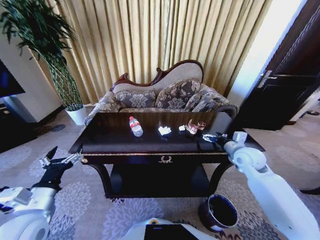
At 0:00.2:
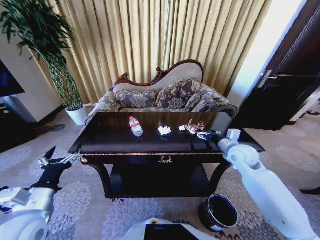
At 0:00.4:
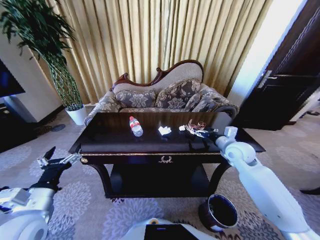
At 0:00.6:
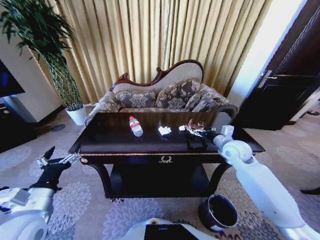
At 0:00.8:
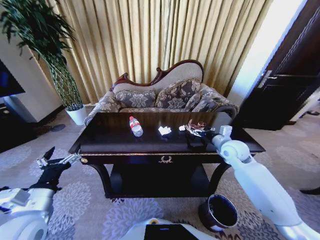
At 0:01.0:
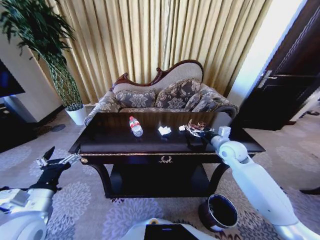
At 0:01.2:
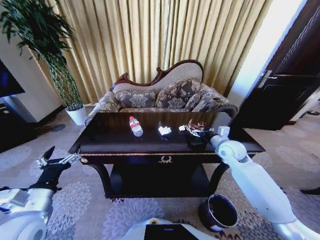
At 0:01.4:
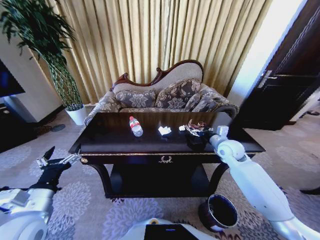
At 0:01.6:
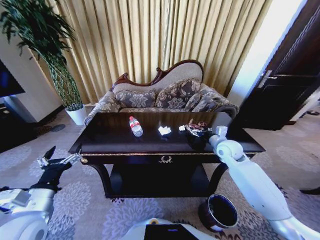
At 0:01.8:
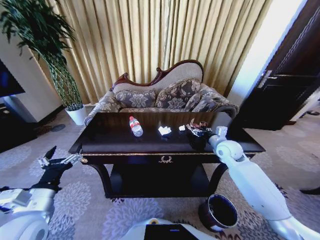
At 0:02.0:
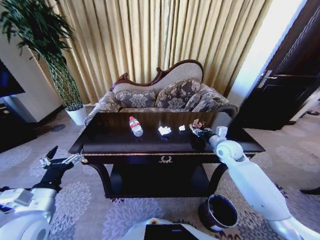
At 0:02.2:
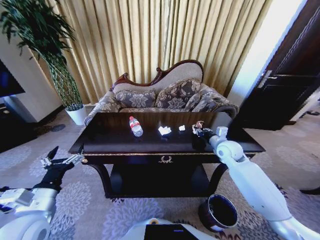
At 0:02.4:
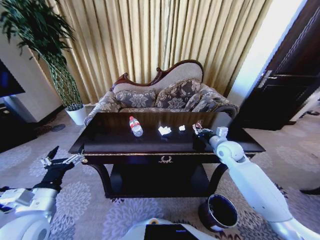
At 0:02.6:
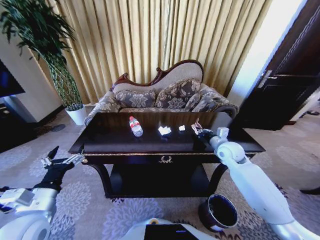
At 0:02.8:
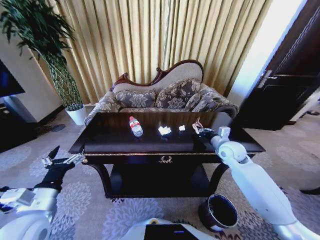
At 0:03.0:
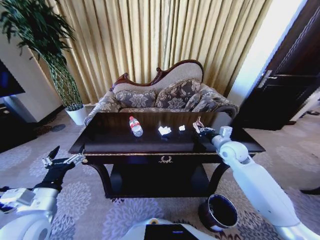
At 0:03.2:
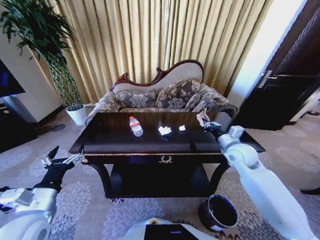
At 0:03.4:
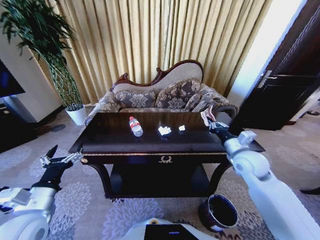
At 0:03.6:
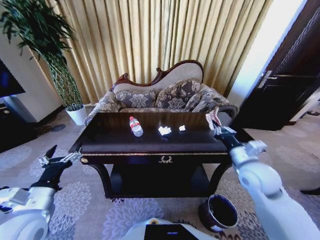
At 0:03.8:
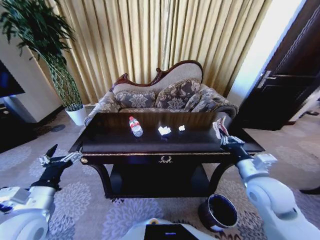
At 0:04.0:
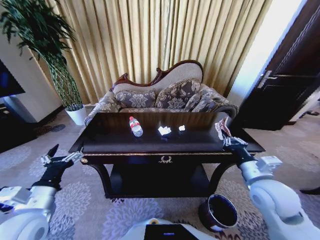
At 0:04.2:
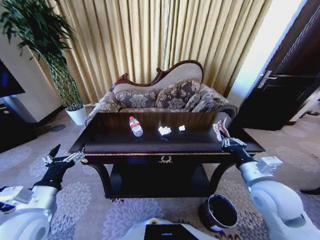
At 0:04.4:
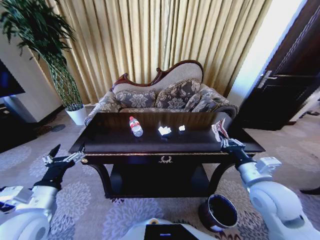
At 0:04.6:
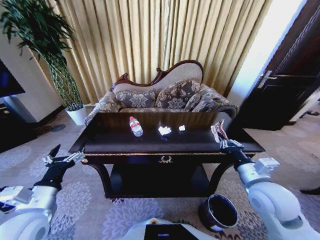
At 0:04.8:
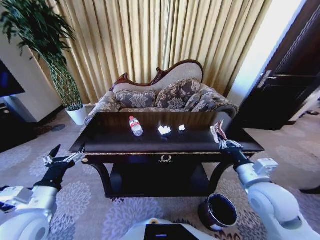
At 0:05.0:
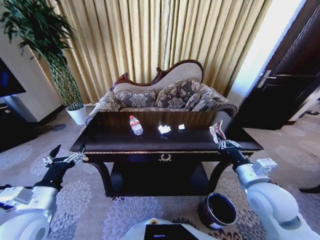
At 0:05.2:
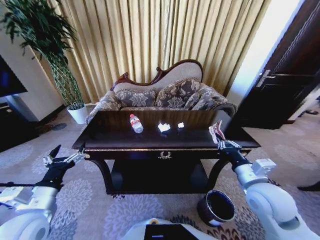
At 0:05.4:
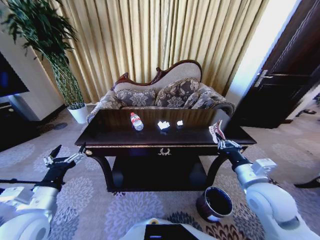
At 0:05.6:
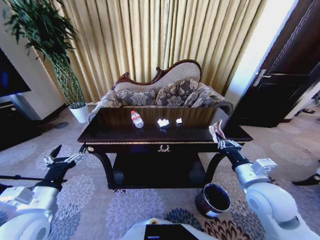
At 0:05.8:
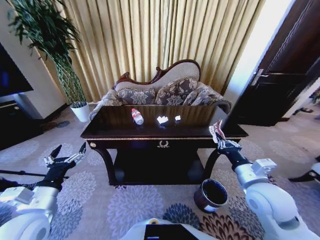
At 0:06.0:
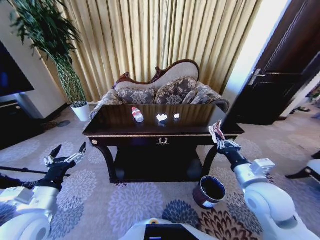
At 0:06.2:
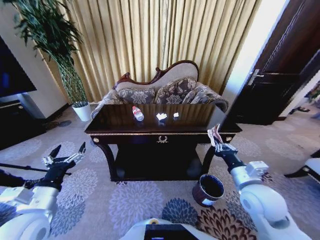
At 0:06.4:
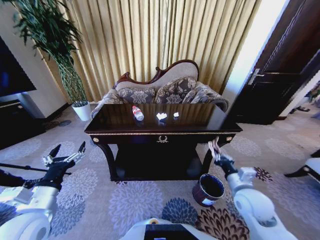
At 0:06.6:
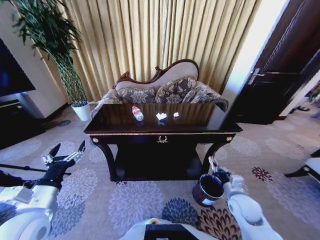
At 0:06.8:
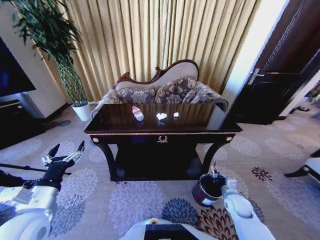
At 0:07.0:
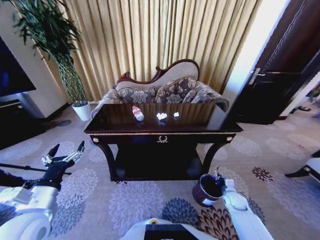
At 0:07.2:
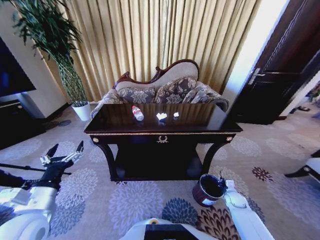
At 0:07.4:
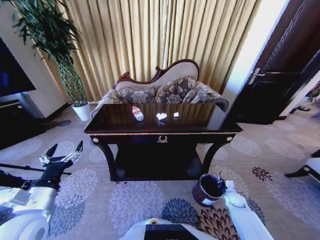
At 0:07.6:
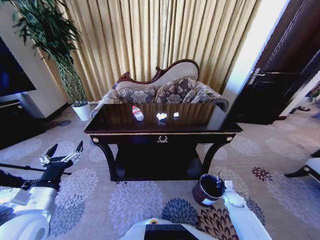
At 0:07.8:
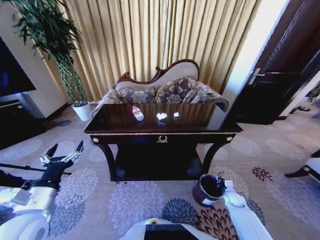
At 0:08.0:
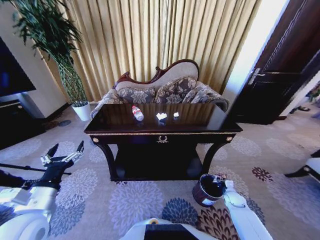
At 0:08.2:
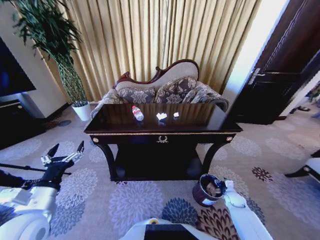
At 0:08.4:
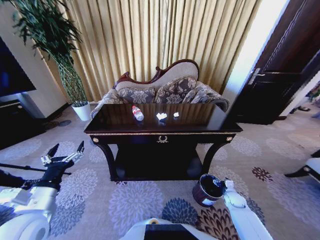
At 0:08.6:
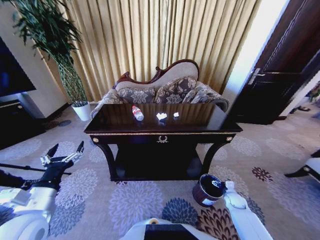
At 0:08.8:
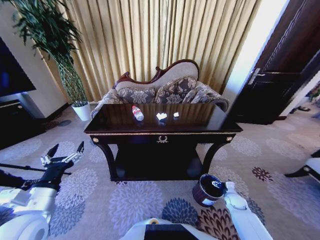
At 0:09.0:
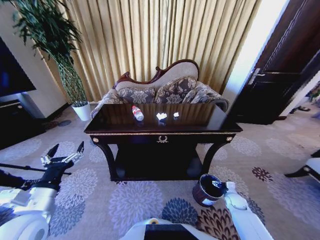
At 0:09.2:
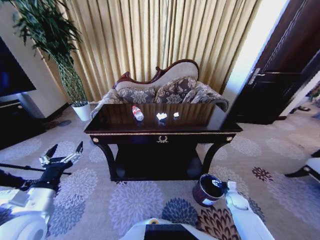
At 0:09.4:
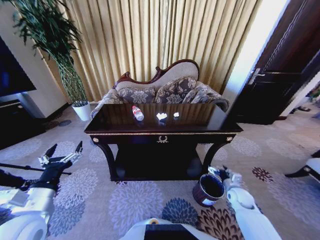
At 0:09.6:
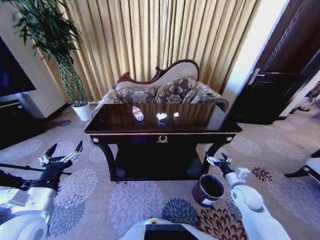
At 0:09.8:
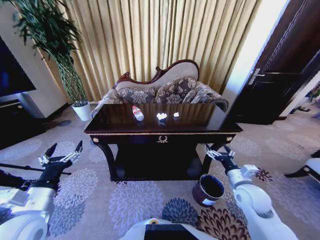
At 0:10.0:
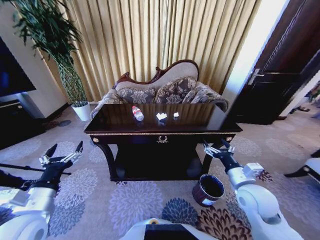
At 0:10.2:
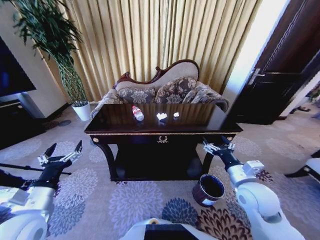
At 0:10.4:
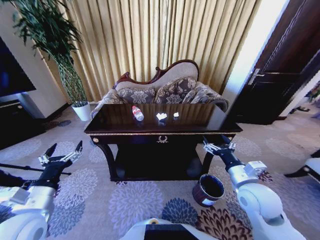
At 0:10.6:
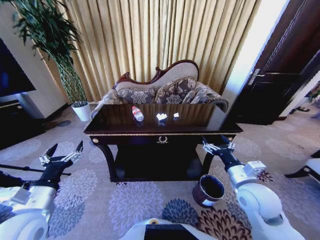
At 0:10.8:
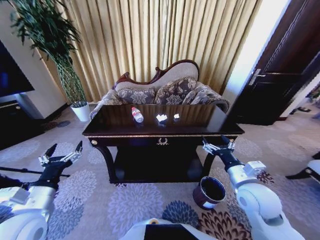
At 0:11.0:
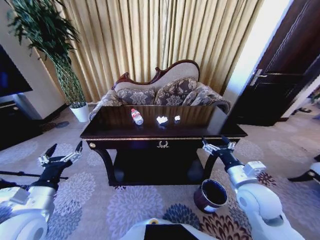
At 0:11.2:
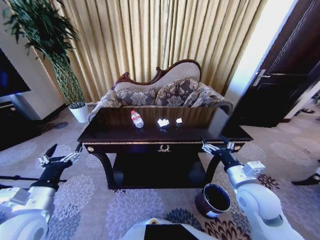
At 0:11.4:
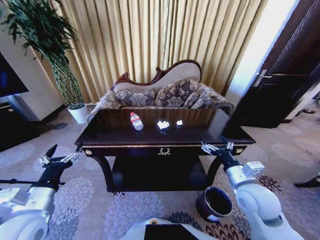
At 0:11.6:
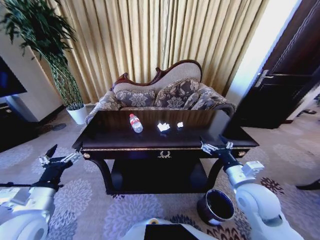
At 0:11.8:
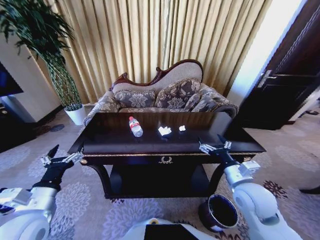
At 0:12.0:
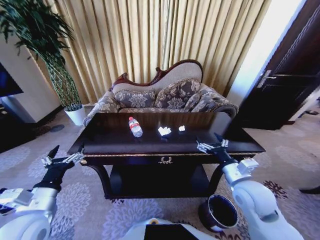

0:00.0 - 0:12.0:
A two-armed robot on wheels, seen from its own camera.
Task of the whole recording: Move to the front of the table and place the trash on the table into the trash bin.
0:00.0 - 0:01.6: The right gripper heads forward, covering approximately 5 cm.
0:01.6 - 0:03.0: The right gripper closes up.
0:03.0 - 0:04.4: The right gripper is displaced backward by some 20 cm.
0:06.0 - 0:07.6: The right gripper goes roughly 35 cm downward.
0:09.0 - 0:10.4: The right gripper goes some 35 cm upward and to the left.

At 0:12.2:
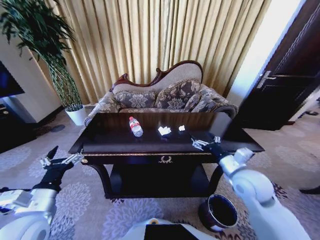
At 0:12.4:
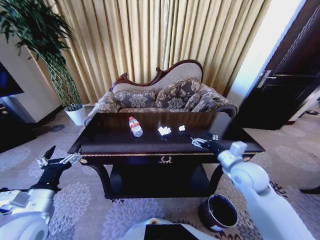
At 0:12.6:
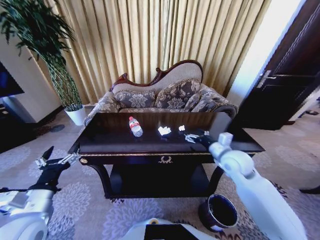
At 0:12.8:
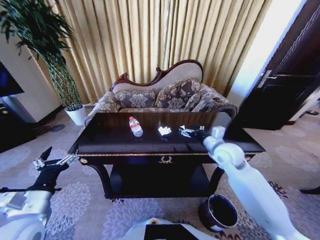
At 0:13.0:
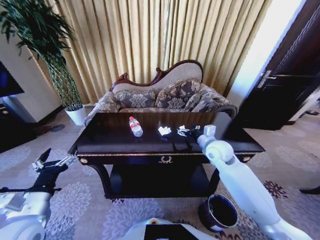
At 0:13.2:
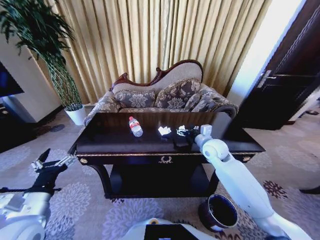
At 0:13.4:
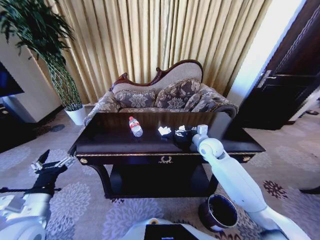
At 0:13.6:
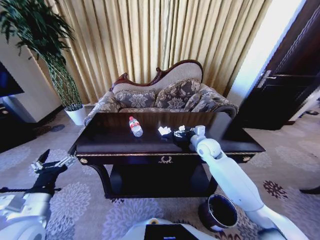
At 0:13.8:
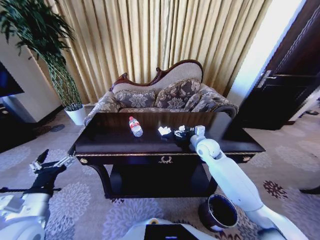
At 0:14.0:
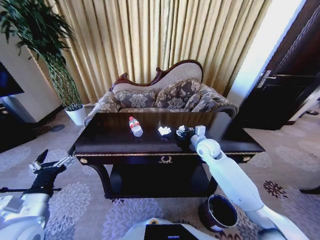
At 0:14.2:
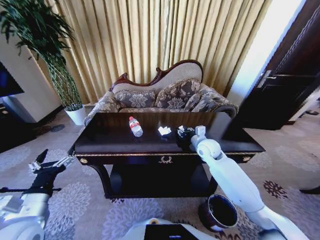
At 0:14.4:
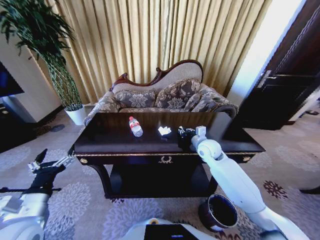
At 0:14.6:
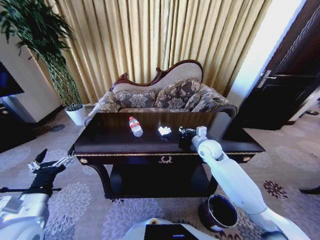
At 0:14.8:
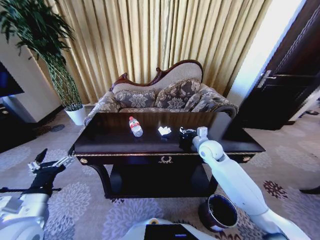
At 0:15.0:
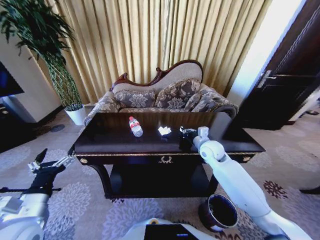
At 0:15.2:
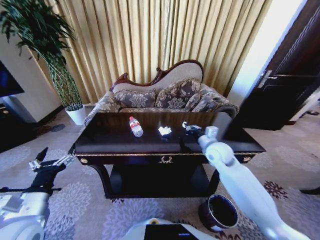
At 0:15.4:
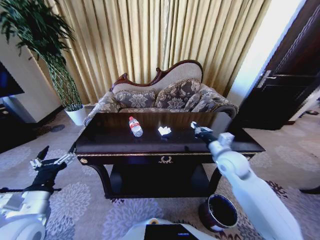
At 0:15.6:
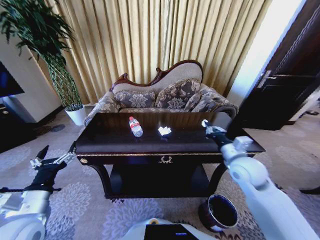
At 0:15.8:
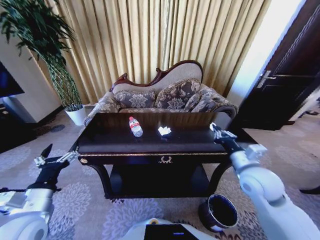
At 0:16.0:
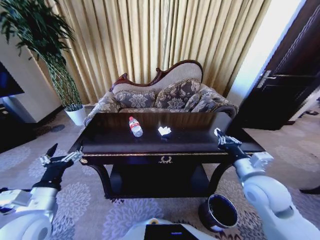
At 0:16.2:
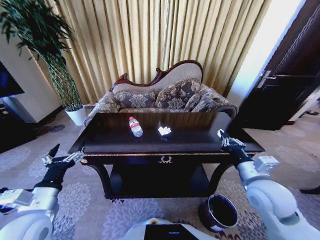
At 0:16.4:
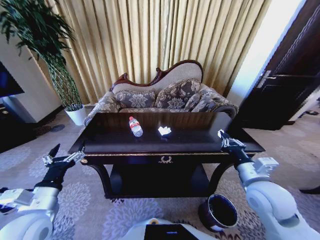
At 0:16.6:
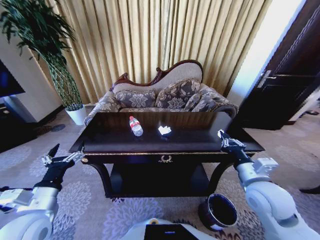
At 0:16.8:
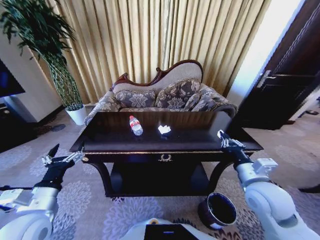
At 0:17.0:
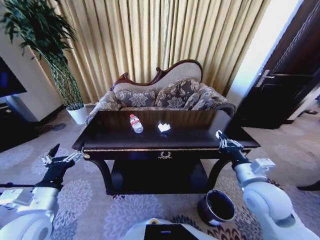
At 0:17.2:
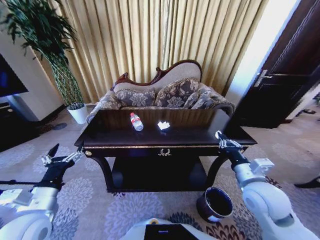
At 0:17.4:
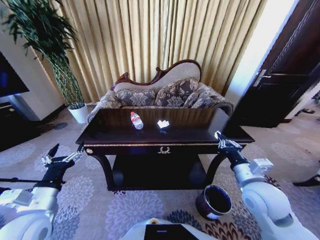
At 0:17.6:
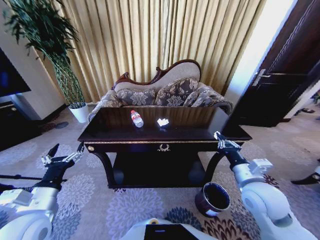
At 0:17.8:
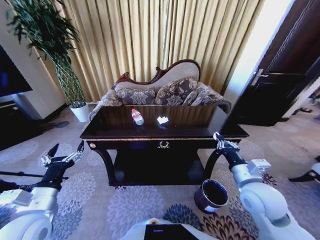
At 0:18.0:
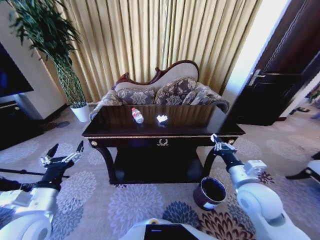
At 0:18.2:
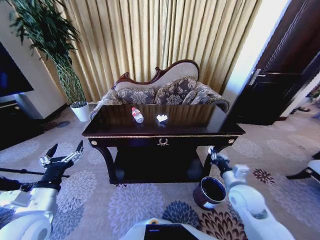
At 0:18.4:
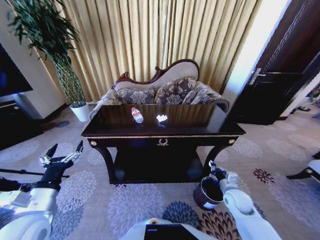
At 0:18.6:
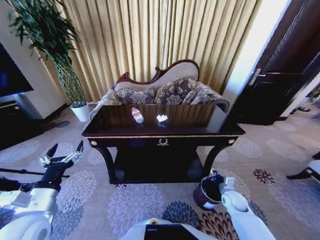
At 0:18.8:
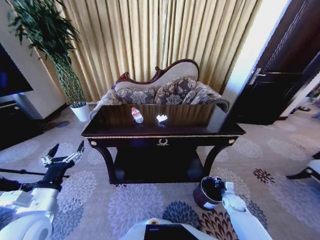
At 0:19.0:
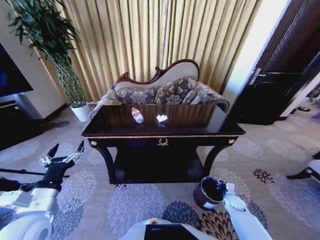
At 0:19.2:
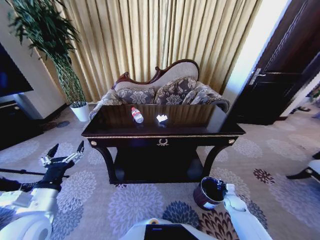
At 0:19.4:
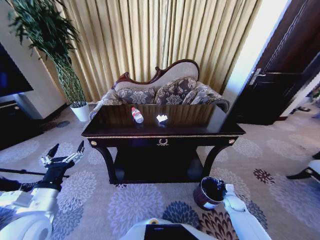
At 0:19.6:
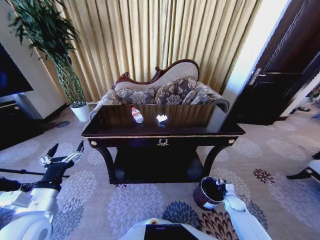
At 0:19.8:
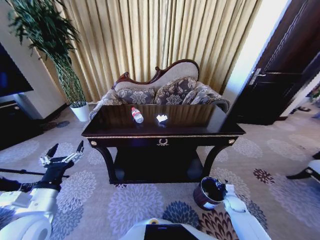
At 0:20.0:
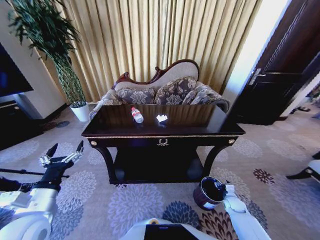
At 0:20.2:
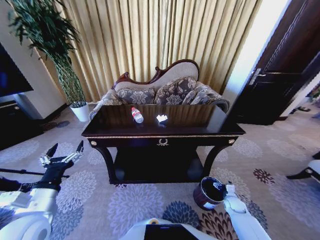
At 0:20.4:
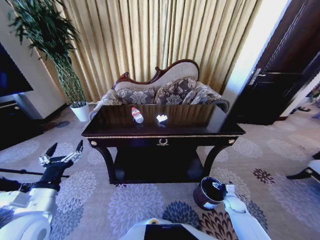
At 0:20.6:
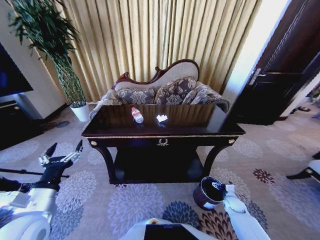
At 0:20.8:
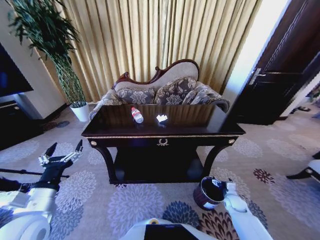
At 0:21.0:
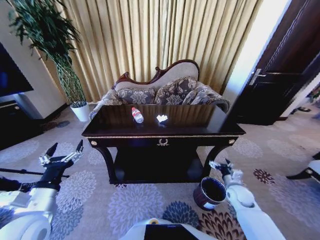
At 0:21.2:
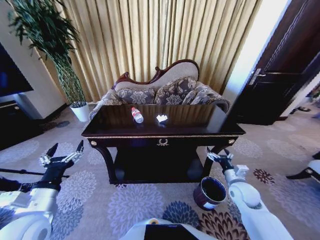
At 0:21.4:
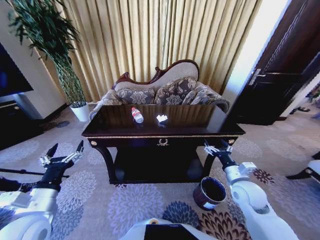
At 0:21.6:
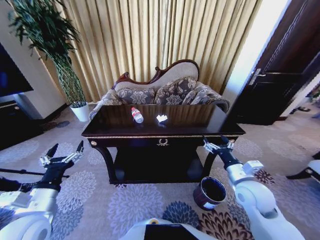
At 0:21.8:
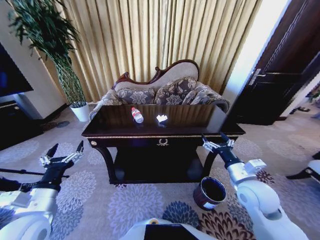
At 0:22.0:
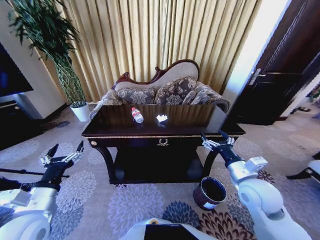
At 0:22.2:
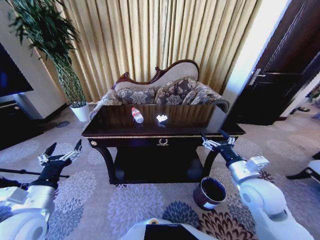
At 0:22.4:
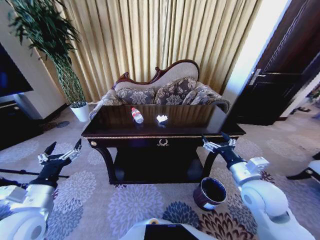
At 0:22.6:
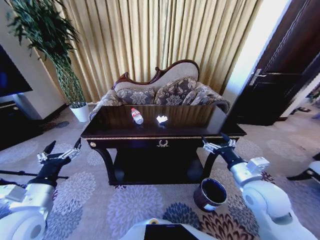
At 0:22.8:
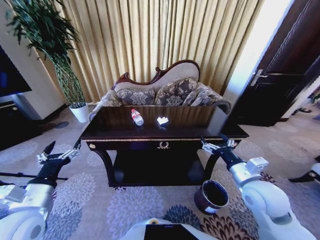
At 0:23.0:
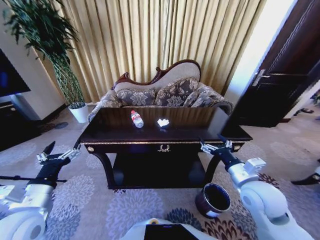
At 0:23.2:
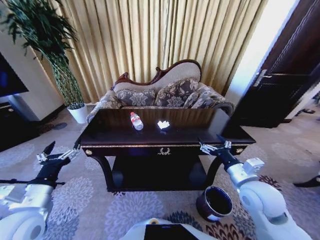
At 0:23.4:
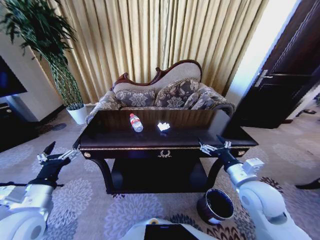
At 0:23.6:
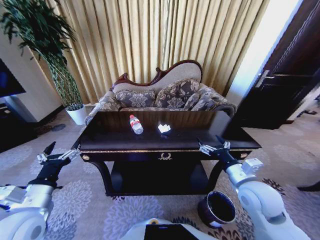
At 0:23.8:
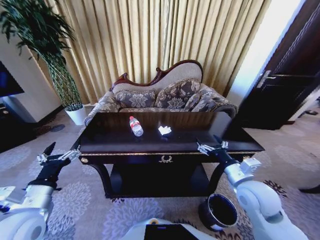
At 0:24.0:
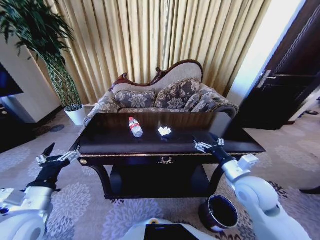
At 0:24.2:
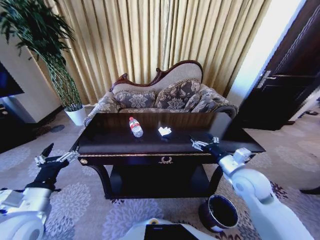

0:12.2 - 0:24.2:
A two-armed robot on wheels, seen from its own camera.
Task of the whole recording: Move to the front of the table and place the trash on the table into the trash bin.
0:12.2 - 0:13.8: The right gripper goes roughly 15 cm forward.
0:13.8 - 0:15.2: The right gripper closes up.
0:15.2 - 0:16.6: The right gripper goes approximately 20 cm backward.
0:16.6 - 0:18.2: The right gripper shifts some 10 cm downward.
0:18.2 - 0:19.8: The right gripper shifts approximately 30 cm downward and to the right, and opens.
0:19.8 - 0:21.2: The right gripper travels upward by some 20 cm, and opens its fingers.
0:21.2 - 0:22.6: The right gripper shifts roughly 15 cm upward and to the left.
